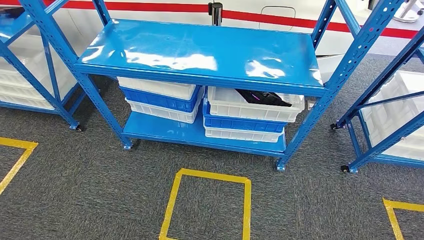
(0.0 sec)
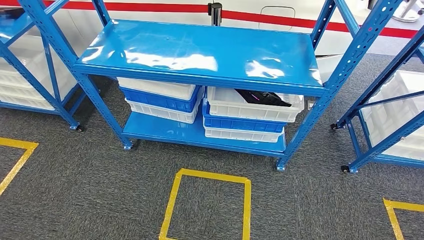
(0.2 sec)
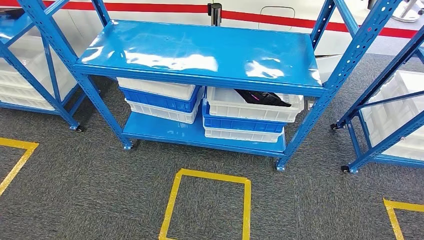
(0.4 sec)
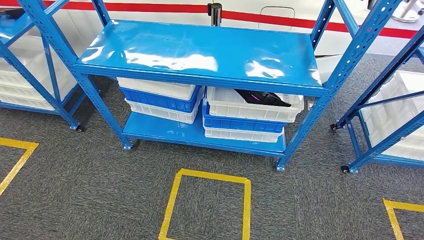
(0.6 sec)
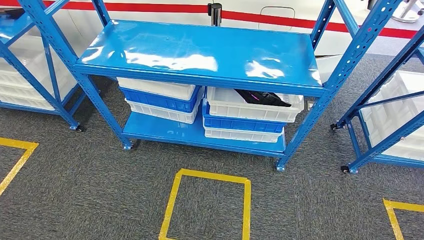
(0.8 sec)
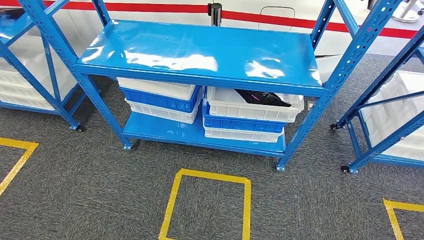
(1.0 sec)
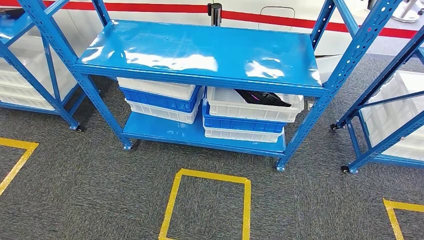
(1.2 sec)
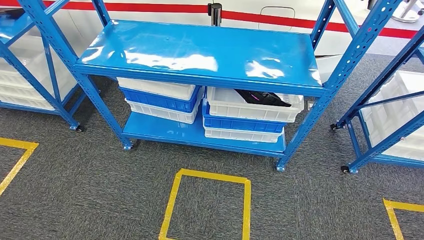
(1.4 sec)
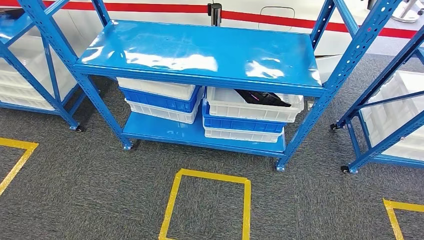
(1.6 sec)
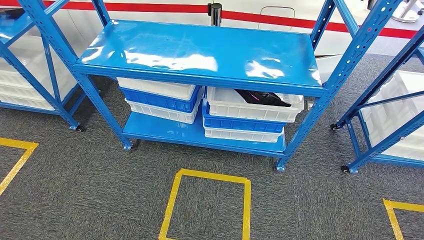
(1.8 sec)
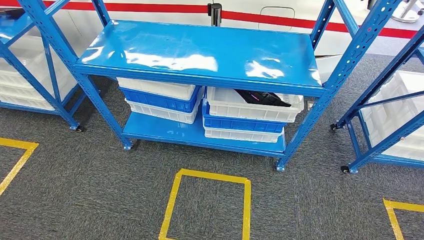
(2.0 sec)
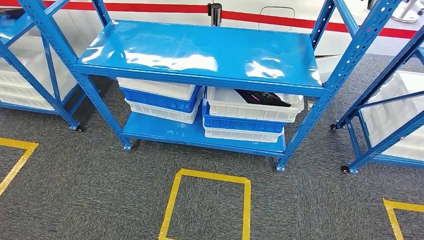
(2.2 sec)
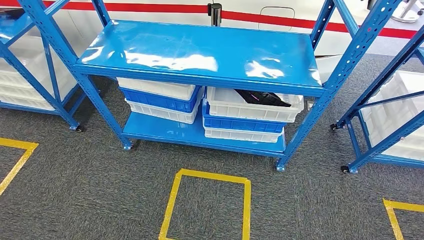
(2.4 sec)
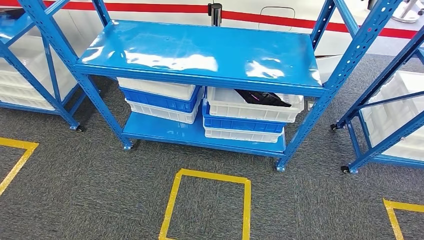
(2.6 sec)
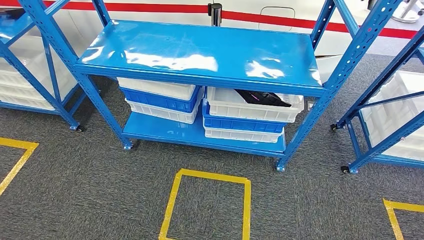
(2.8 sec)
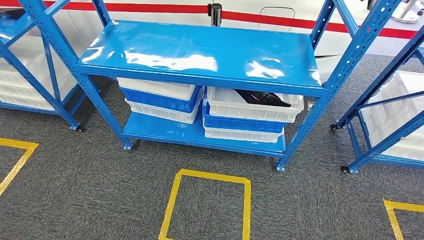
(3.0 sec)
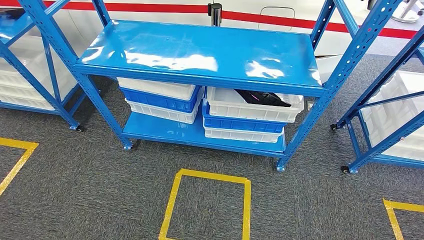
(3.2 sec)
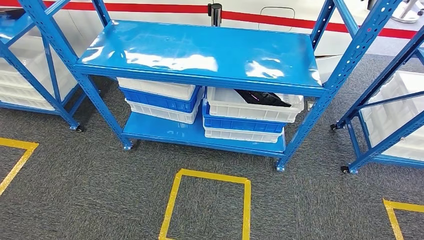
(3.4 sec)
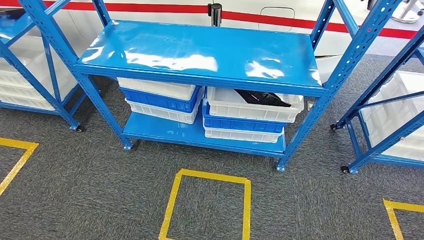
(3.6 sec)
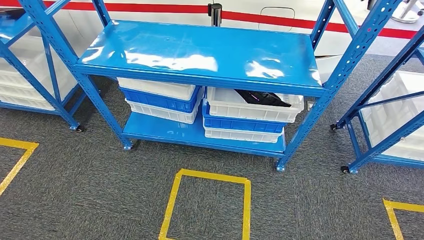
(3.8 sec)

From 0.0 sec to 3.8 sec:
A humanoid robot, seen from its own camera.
Step, from 0.0 sec to 3.8 sec: Move to the initial position of the shelf.
From 0.0 sec to 1.2 sec: Both hands stay about where they are.
